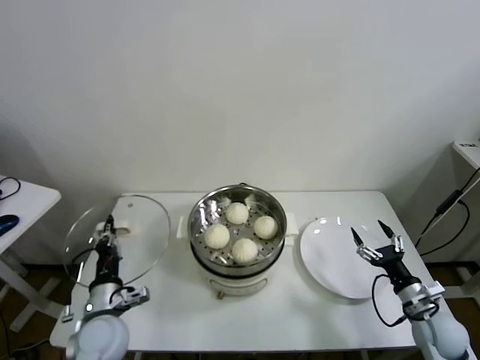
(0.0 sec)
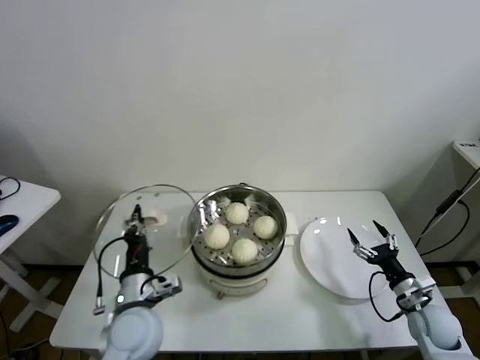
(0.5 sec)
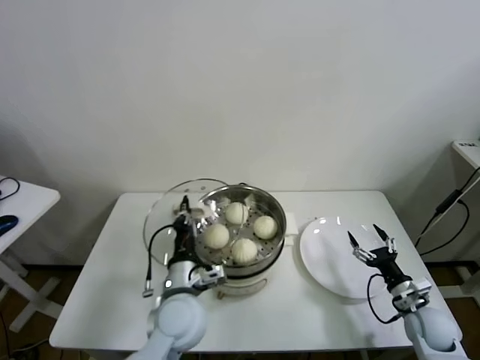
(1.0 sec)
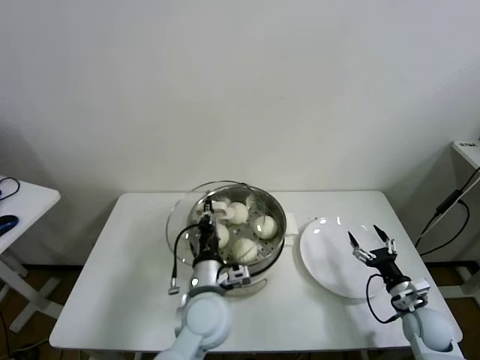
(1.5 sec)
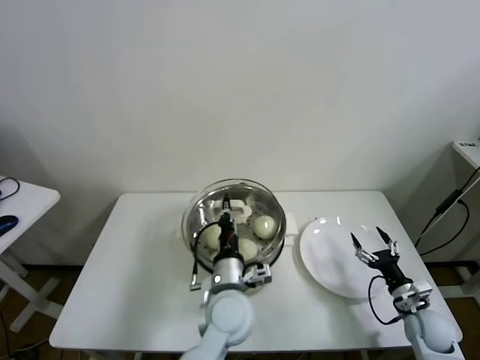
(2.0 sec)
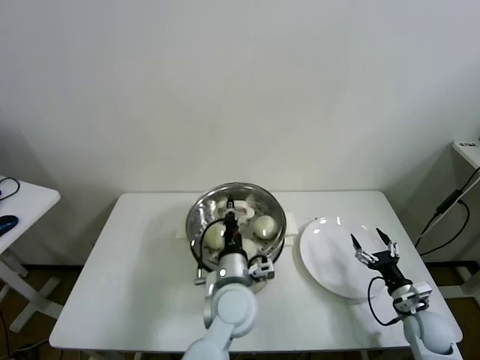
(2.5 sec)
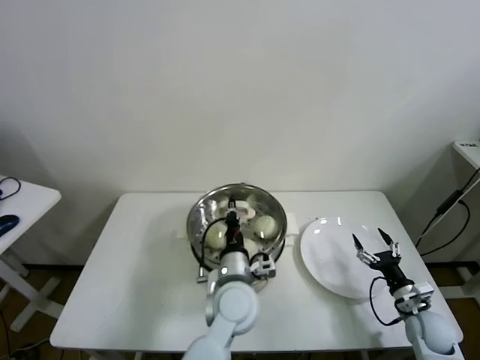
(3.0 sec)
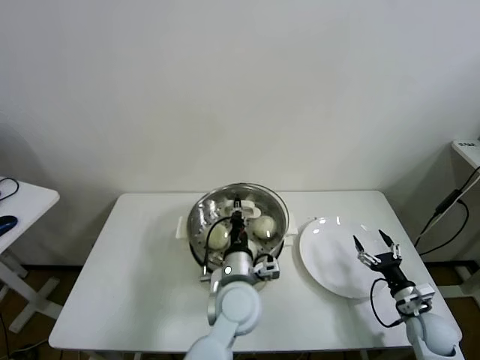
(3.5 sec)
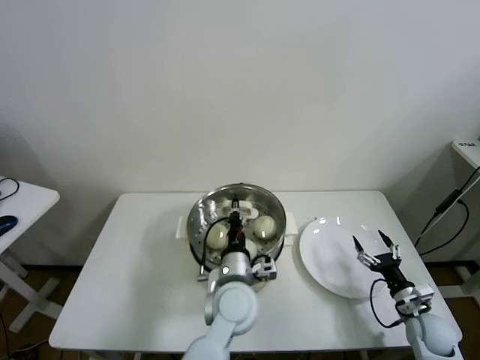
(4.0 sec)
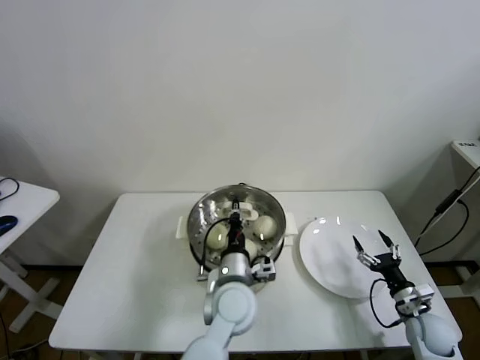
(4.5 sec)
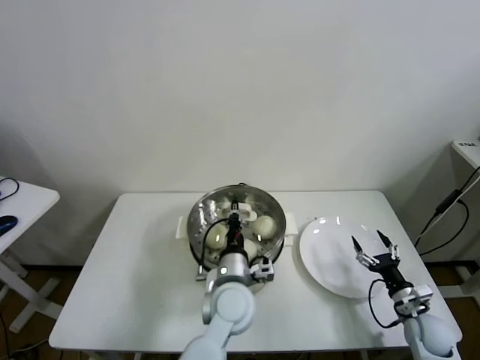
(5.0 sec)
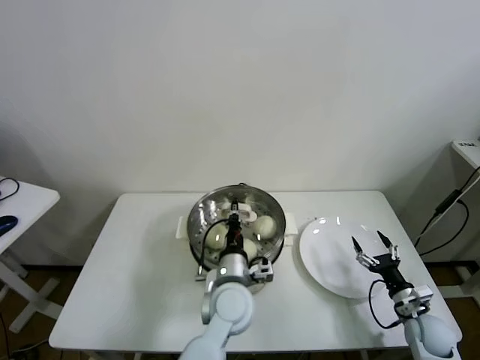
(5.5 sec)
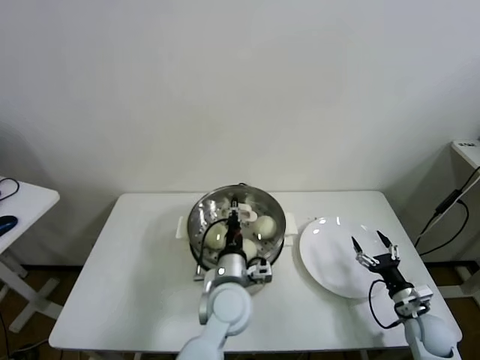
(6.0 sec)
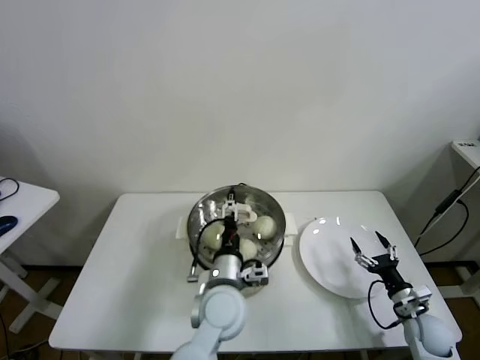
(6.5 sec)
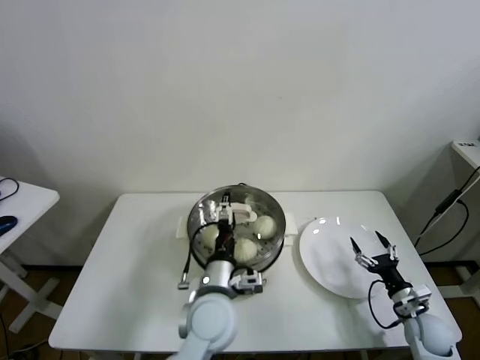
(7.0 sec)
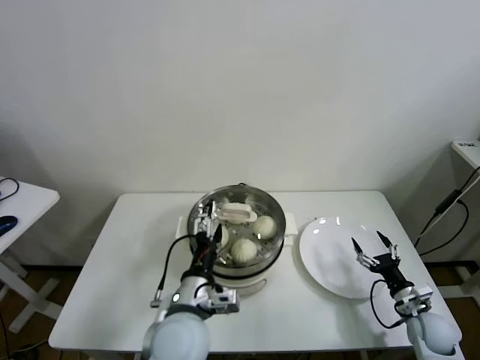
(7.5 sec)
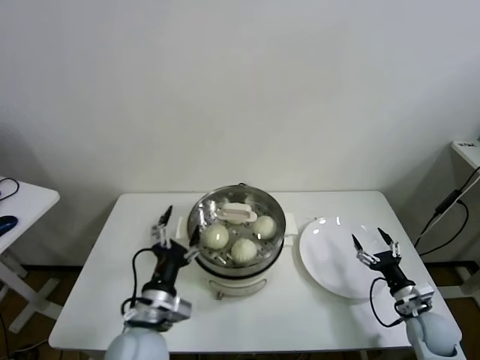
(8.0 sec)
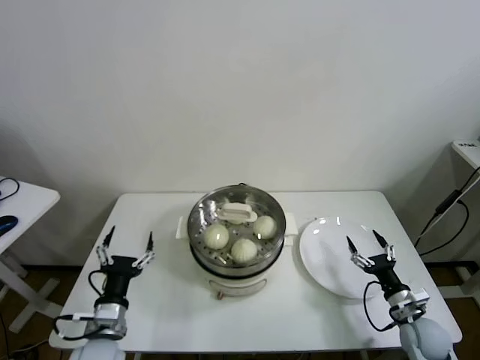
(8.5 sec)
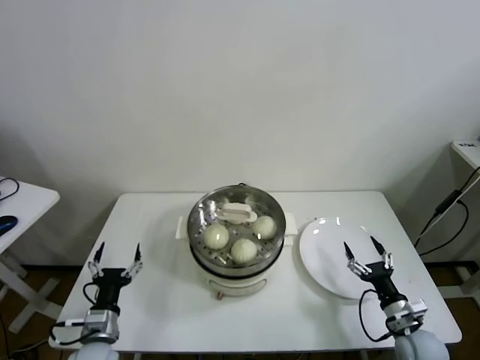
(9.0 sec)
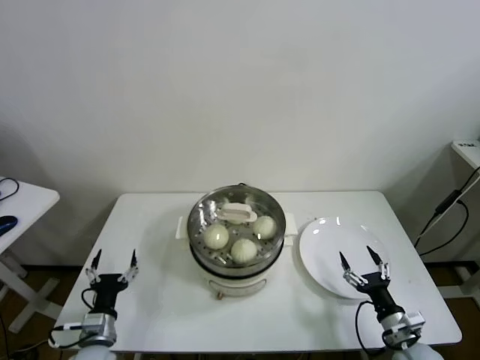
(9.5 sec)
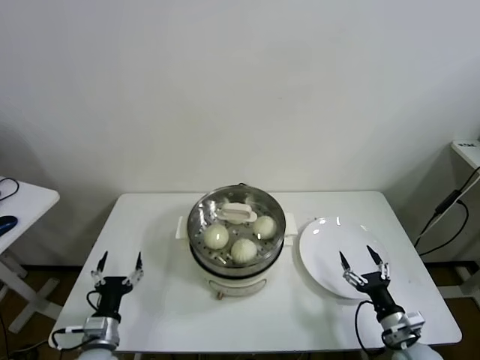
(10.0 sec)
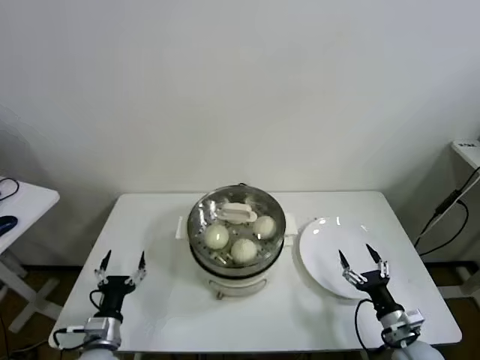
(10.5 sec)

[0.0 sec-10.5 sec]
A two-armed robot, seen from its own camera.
Task of the whole recording: take steamed baozi put them in steamer.
Step, 0.0 sec to 6.0 sec: Place the pot lid on the steamer with left gripper.
0.0 sec to 2.0 sec: The left gripper shifts approximately 25 cm to the right; the right gripper moves approximately 5 cm.
2.0 sec to 4.0 sec: The grippers move only a little.
4.0 sec to 6.5 sec: The left gripper opens up.
6.5 sec to 8.5 sec: The left gripper shifts some 25 cm to the left.
8.5 sec to 10.5 sec: The left gripper shifts roughly 10 cm downward and to the left, while the right gripper ends up roughly 5 cm from where it was.
